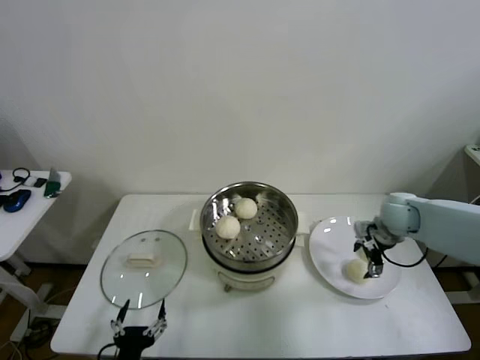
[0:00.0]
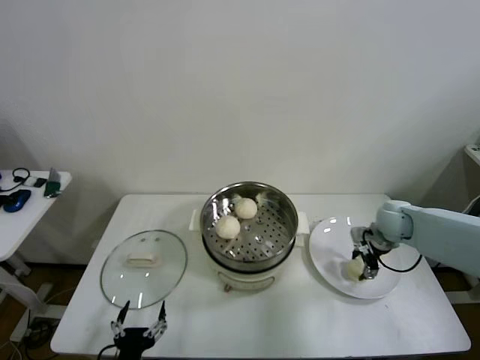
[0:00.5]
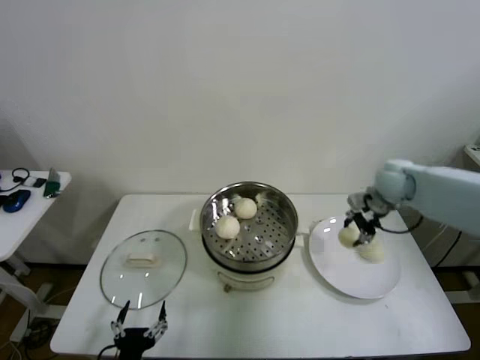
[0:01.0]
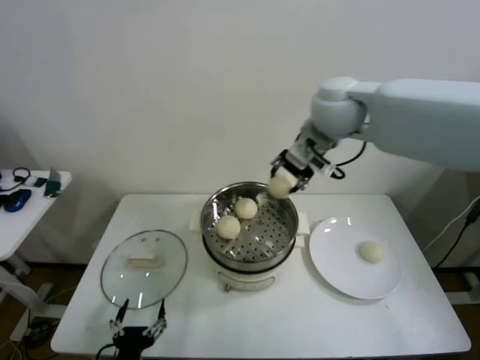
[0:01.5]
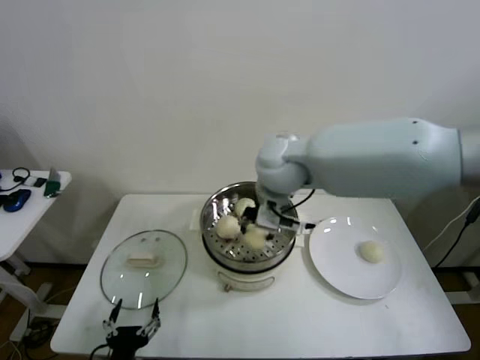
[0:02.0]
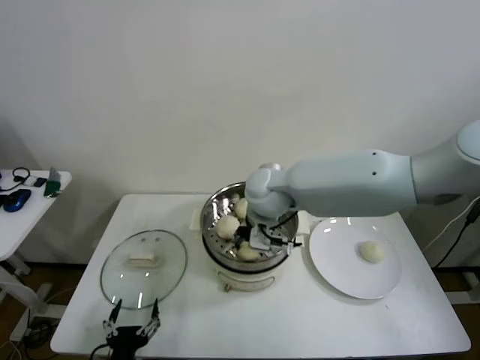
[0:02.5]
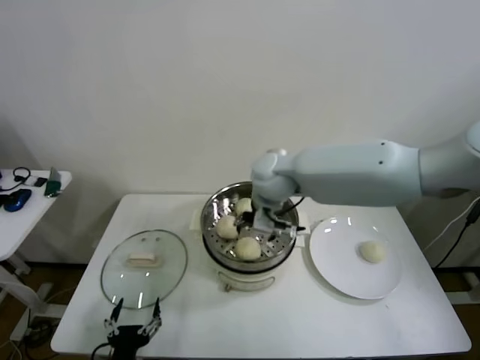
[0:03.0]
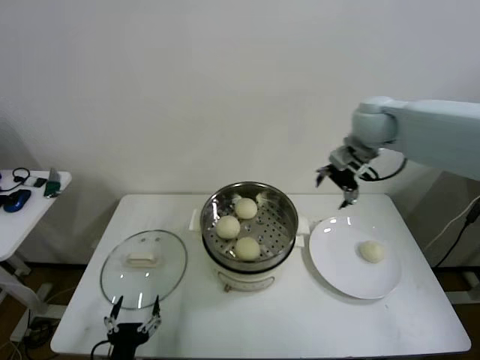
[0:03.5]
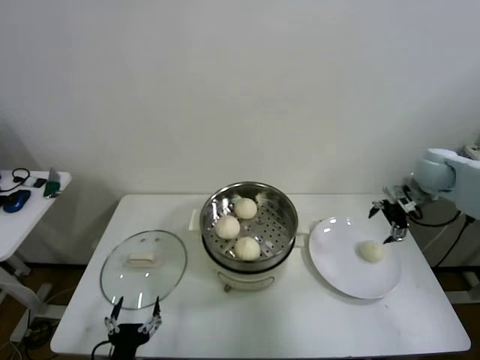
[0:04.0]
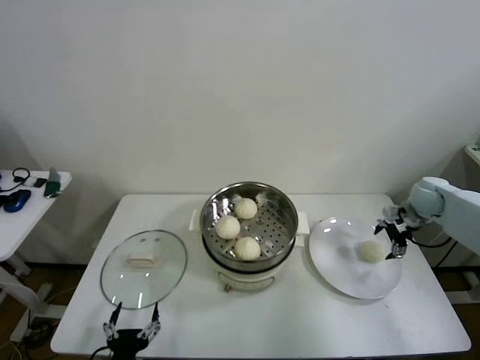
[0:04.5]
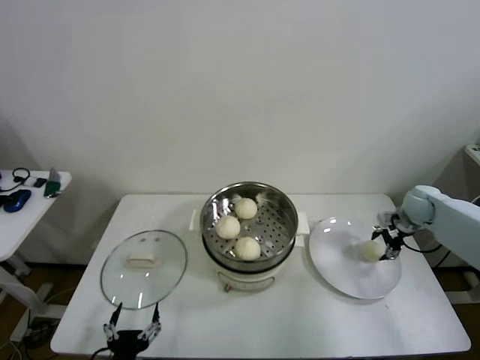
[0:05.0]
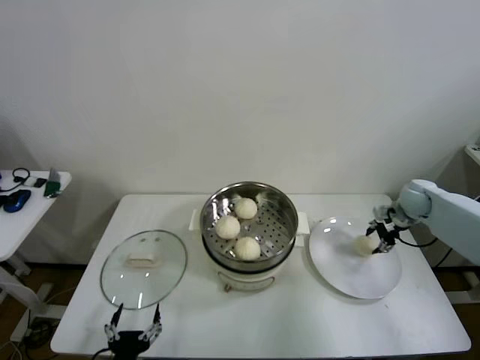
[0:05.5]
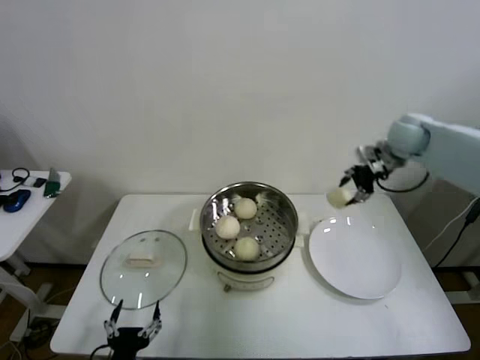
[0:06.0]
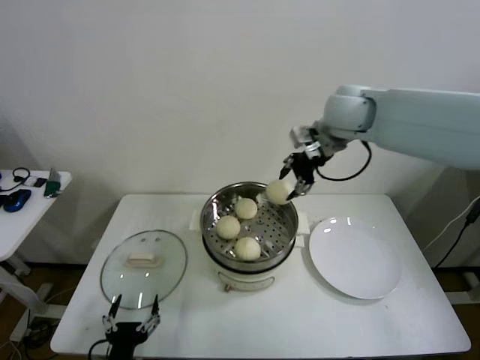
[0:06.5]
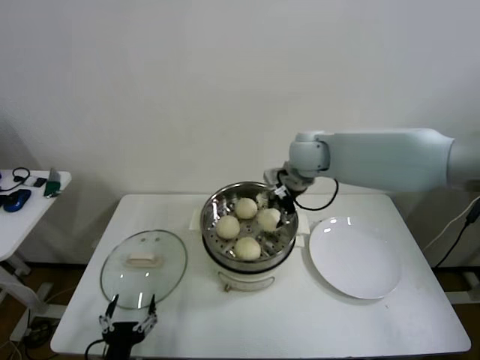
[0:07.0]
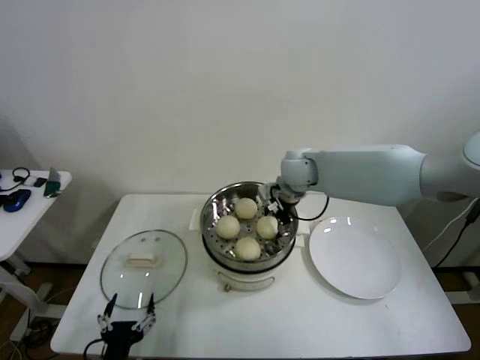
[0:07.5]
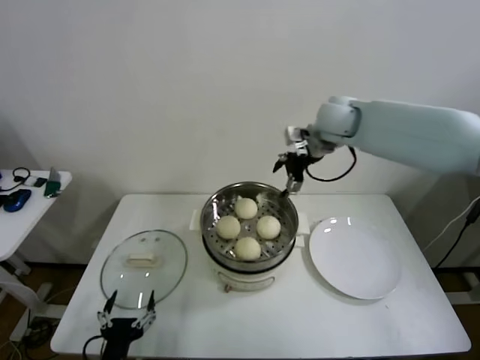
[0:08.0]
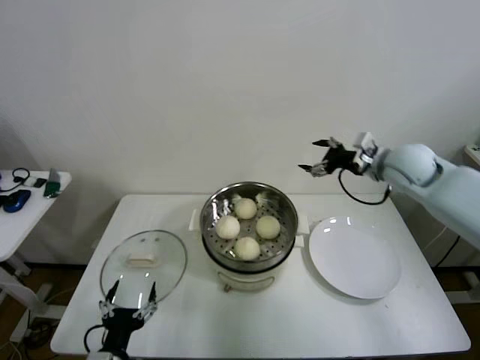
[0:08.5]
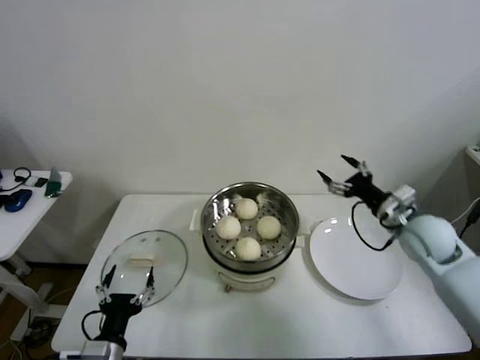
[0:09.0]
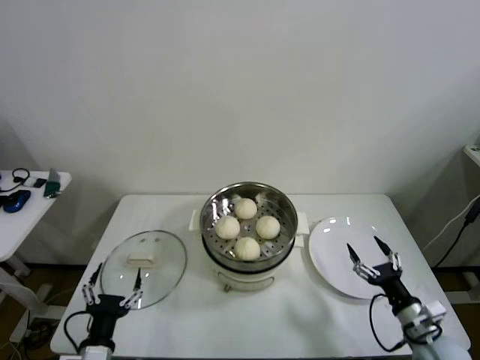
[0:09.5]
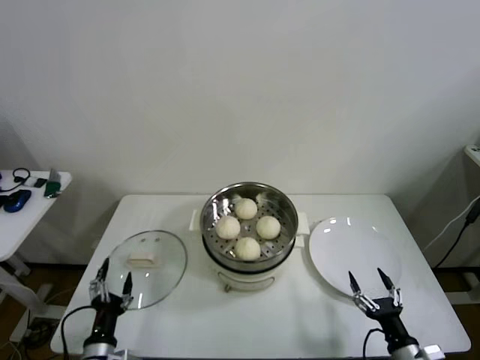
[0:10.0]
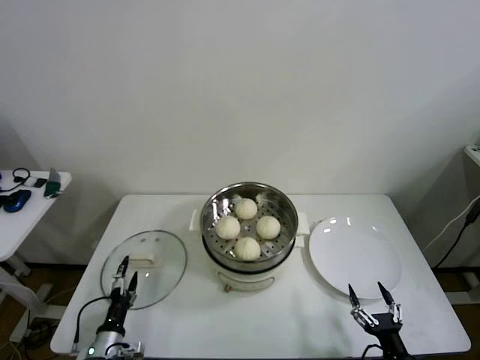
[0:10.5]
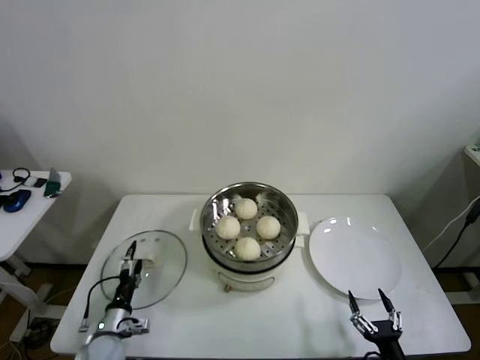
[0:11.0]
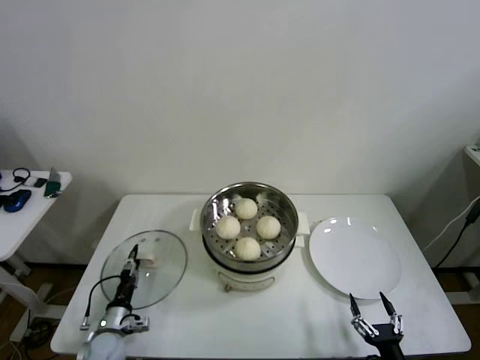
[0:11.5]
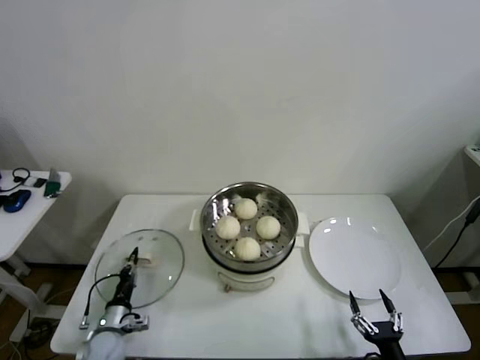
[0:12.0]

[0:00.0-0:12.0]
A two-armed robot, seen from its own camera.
Step, 0:01.0 to 0:02.5: Place the baozi on the steamer with right gripper.
Step, 0:03.0 to 0:05.0: Grasp the baozi in the plate with right gripper.
Step, 0:05.5 to 0:07.5: Place the baozi on the steamer with right gripper.
Step, 0:08.0 to 0:11.5: Grasp the pot lid with left gripper.
0:00.0 to 0:02.0: The right gripper goes about 35 cm to the left and upward, and closes its fingers.
0:02.0 to 0:04.0: The right gripper moves to the right, roughly 35 cm, and opens.
0:04.0 to 0:06.0: The right gripper moves to the left and upward, approximately 10 cm, and closes.
0:06.0 to 0:08.0: The right gripper moves to the left, about 15 cm, and opens up.
0:08.0 to 0:10.0: The left gripper changes place by some 10 cm, while the right gripper moves backward and downward, about 60 cm.
0:10.0 to 0:12.0: The left gripper heads forward and downward, covering about 15 cm, and closes its fingers; the right gripper travels backward by roughly 5 cm.

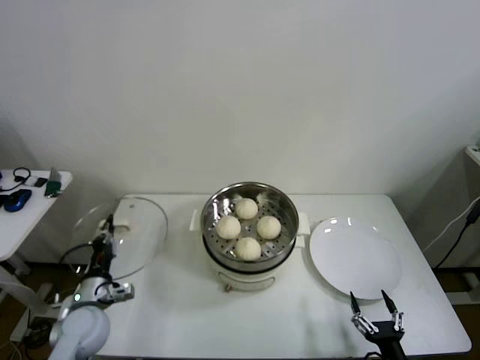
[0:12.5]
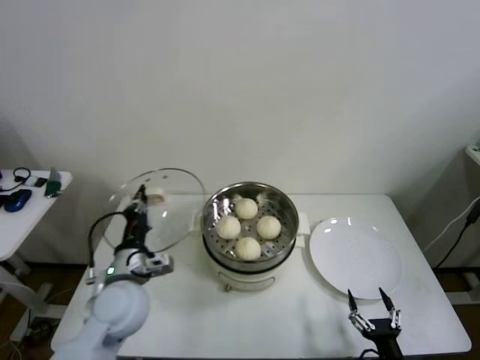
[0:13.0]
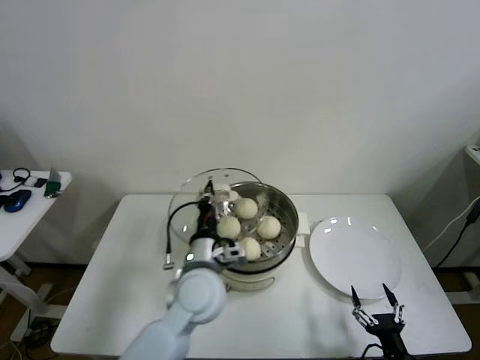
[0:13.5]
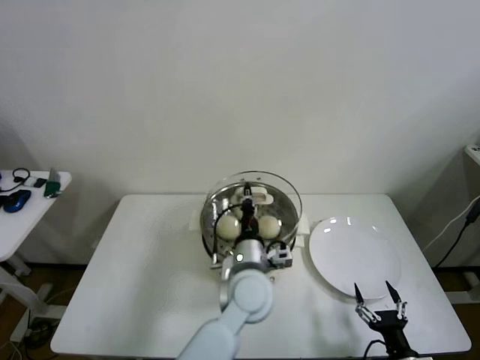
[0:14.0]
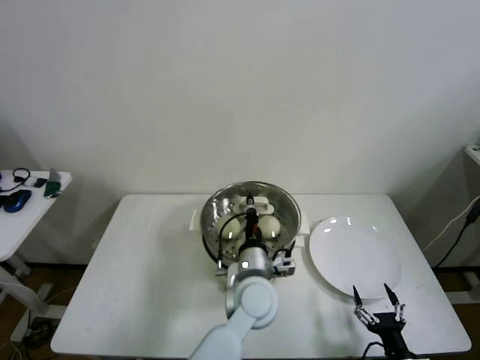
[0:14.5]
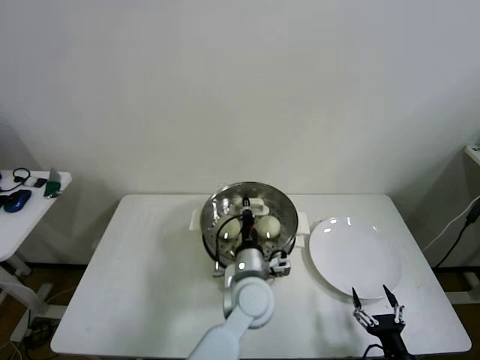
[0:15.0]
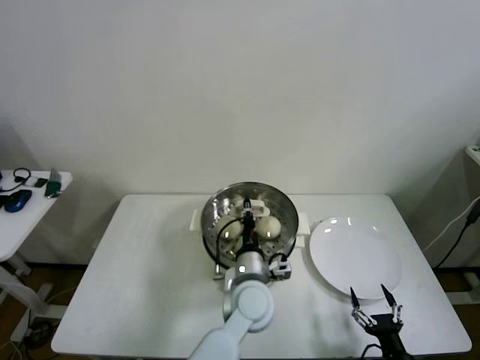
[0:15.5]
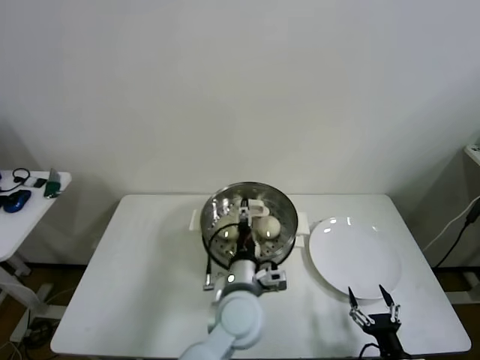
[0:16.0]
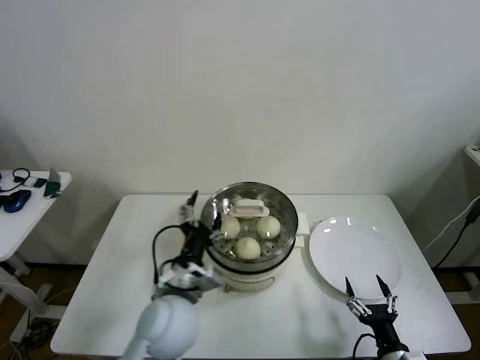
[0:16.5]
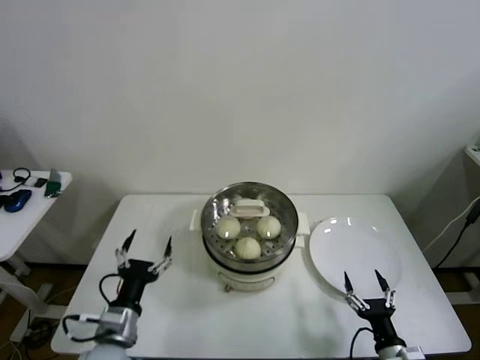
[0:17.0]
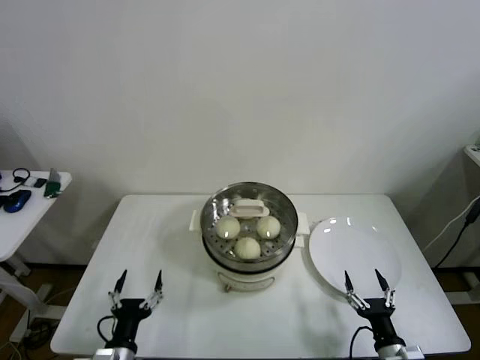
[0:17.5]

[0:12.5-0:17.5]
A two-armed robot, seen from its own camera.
Step, 0:12.5 to 0:15.5: Place the pot lid on the steamer with left gripper.
0:12.5 to 0:15.0: The left gripper heads to the right, covering about 35 cm.
0:15.0 to 0:17.5: The left gripper shifts roughly 30 cm to the left and backward, and opens.
